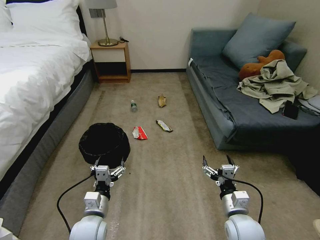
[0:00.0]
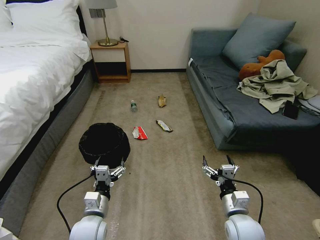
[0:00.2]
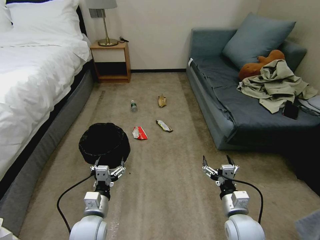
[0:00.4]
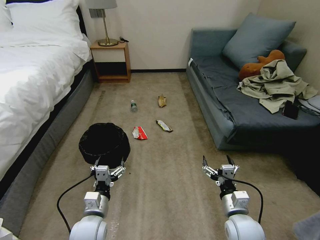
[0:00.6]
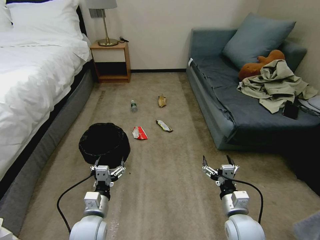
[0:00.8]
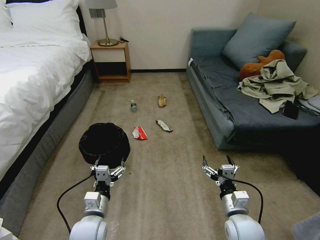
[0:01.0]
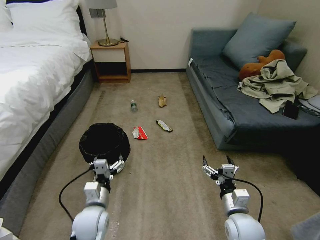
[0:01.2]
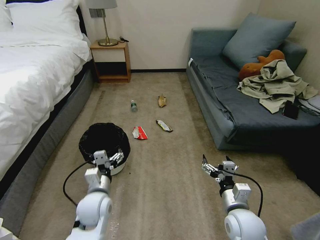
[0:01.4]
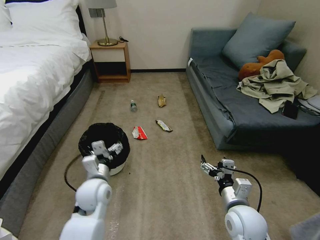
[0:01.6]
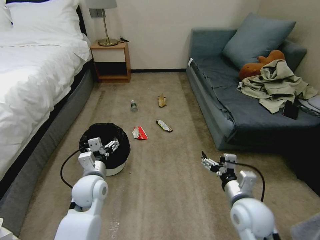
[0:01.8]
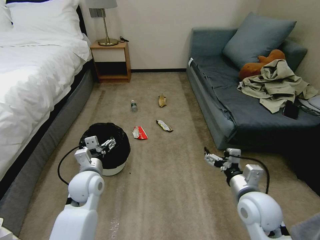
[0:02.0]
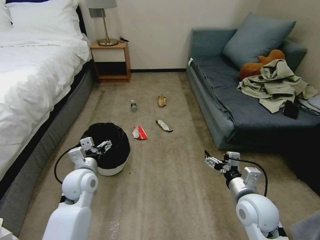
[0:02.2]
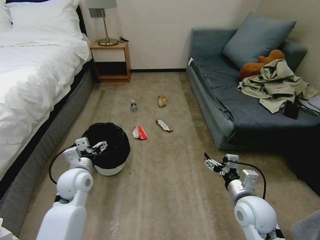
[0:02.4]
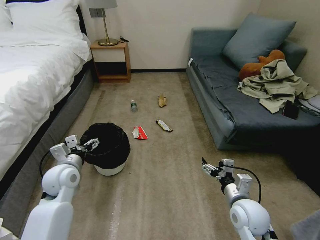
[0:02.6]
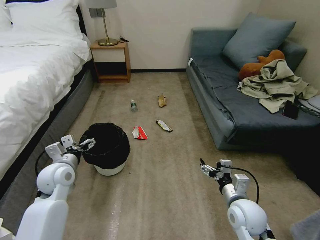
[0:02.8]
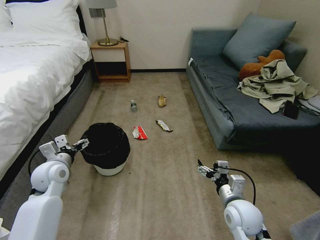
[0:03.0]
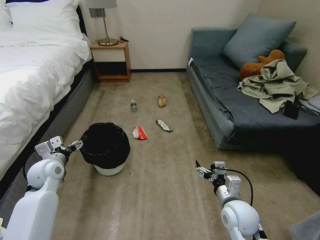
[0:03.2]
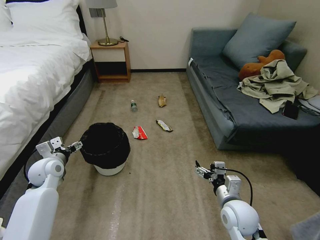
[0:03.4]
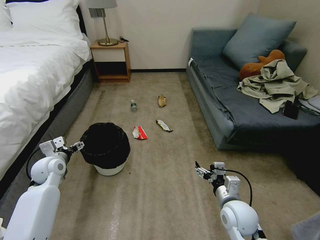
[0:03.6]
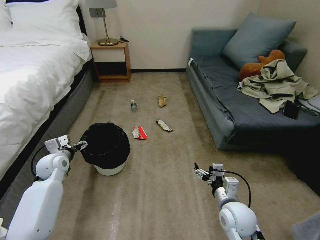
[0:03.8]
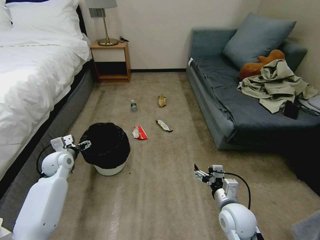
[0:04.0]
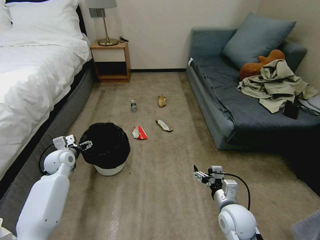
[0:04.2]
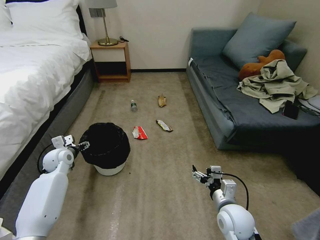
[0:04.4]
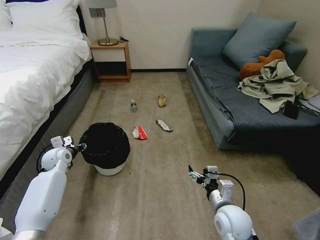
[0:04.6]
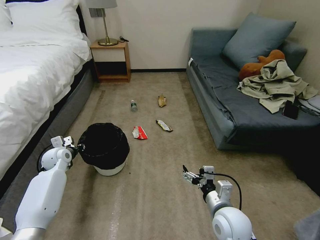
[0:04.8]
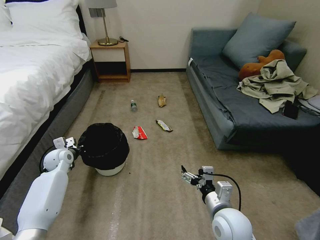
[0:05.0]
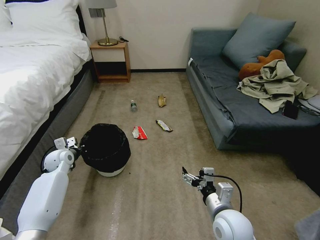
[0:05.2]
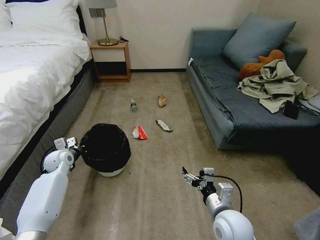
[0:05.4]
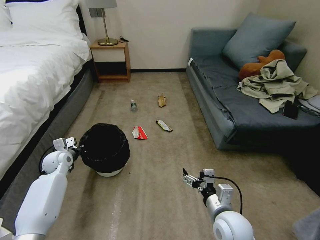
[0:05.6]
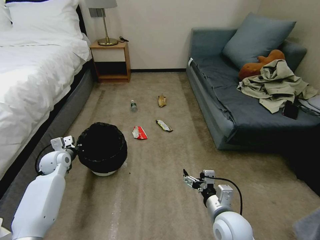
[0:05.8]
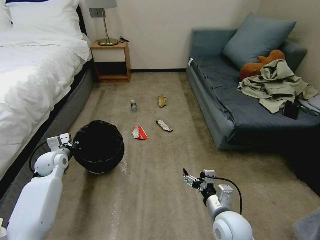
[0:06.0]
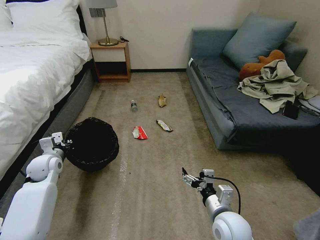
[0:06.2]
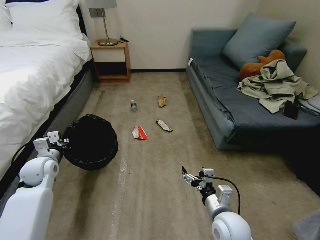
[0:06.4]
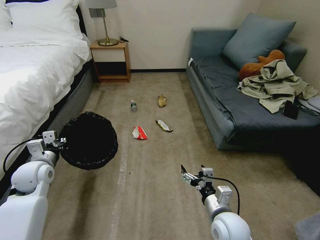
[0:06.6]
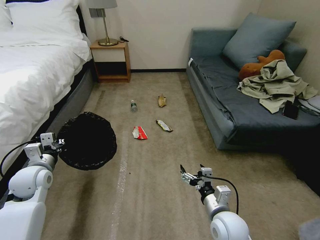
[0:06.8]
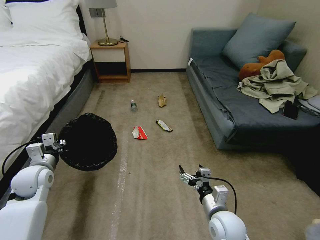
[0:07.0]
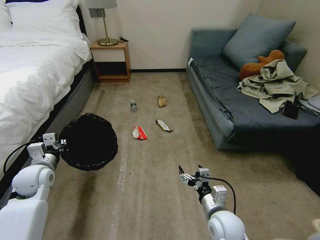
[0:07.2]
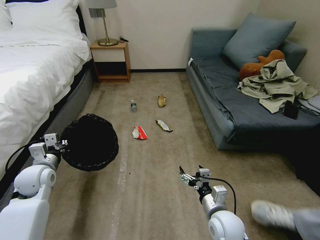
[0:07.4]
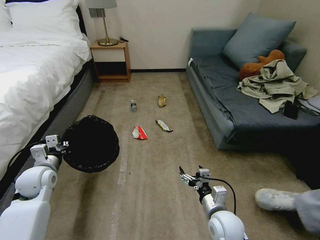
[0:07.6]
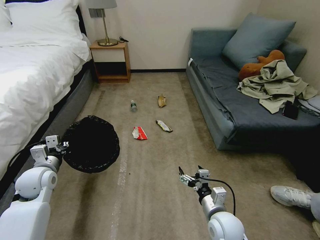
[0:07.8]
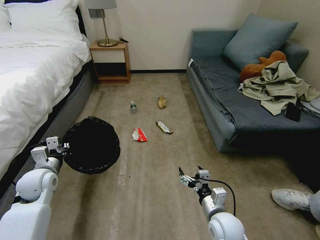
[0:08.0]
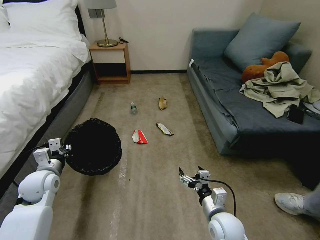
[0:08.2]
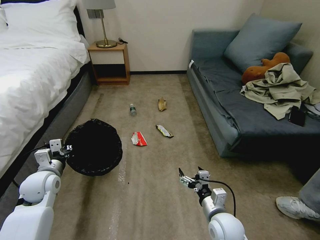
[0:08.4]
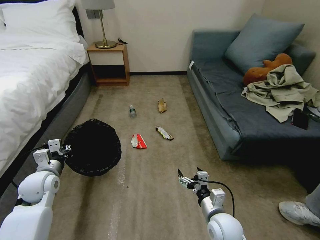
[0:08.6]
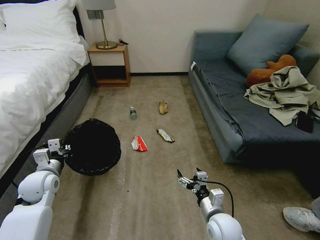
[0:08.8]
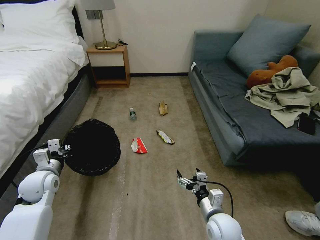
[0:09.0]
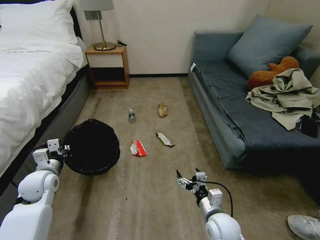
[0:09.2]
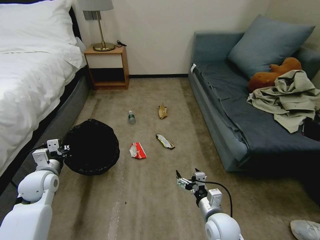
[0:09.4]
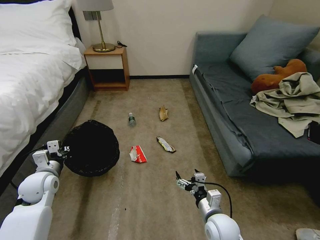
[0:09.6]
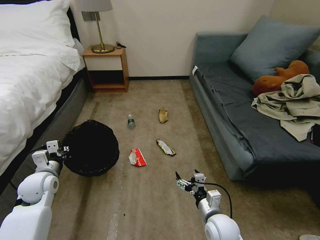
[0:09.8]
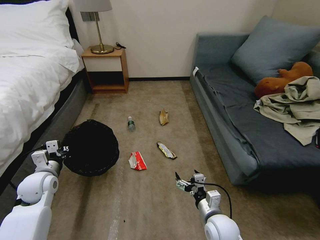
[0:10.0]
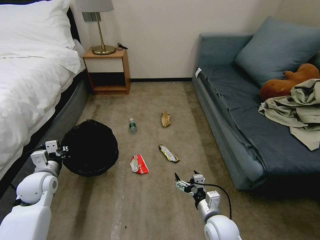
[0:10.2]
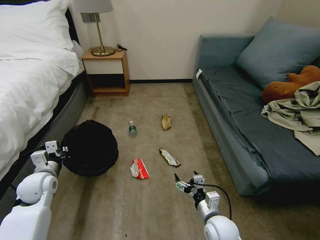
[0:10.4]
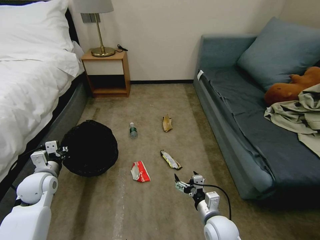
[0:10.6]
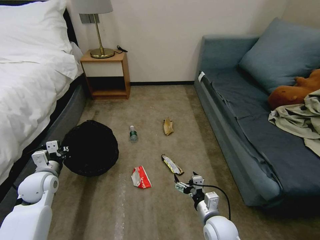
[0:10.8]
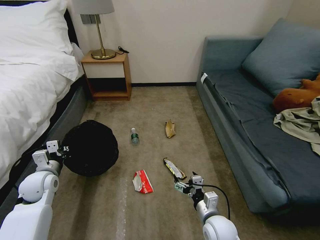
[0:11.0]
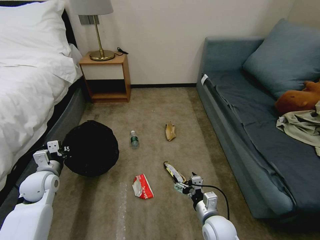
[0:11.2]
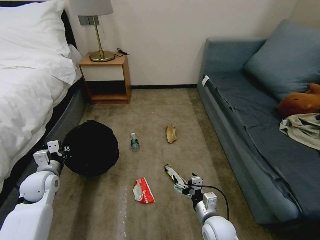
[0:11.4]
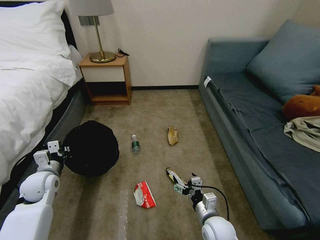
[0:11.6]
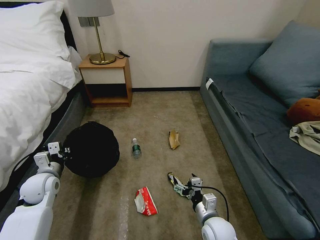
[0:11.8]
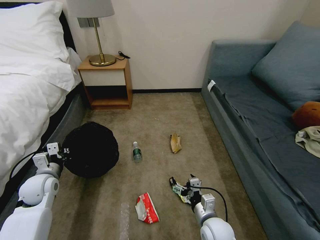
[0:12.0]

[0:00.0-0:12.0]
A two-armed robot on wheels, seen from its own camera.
Task of the whole recording: Pick up the trash bin, then pick up the garbage on the floor and place it into the trash bin.
0:01.6 to 0:03.0: The left gripper moves to the left, approximately 15 cm.
0:03.0 to 0:04.4: The left gripper goes about 10 cm forward and downward.
0:04.4 to 0:06.0: The left gripper closes.
0:06.0 to 0:07.6: The left gripper travels backward by approximately 10 cm.

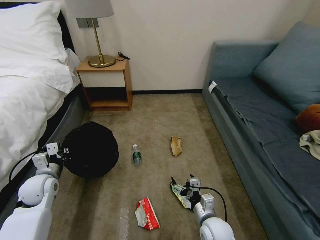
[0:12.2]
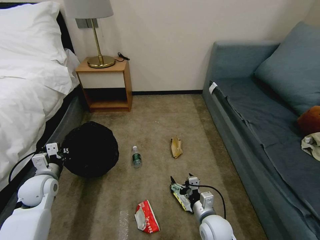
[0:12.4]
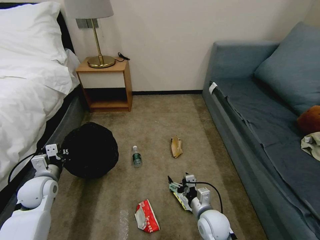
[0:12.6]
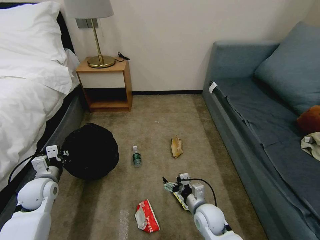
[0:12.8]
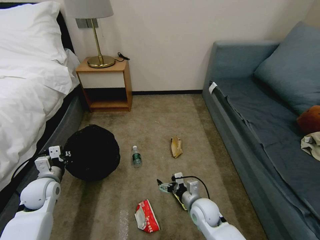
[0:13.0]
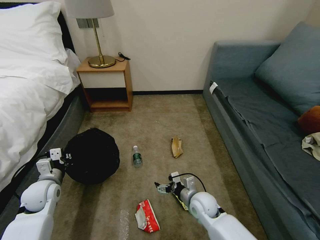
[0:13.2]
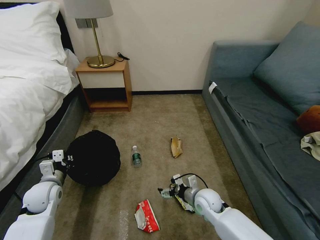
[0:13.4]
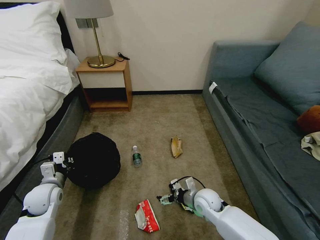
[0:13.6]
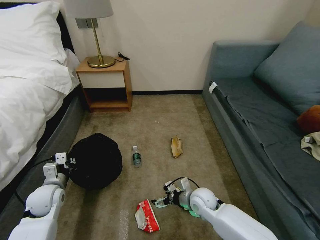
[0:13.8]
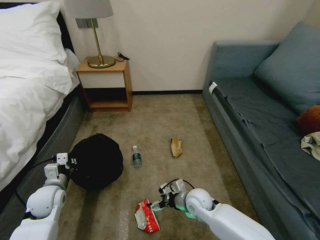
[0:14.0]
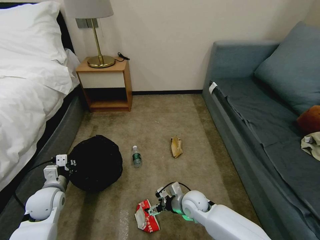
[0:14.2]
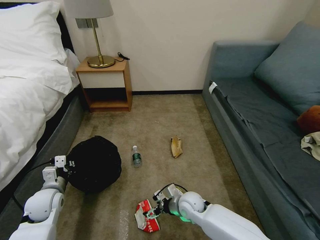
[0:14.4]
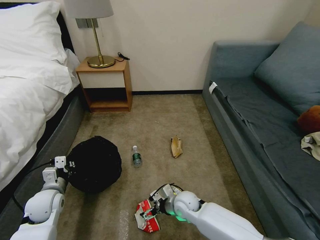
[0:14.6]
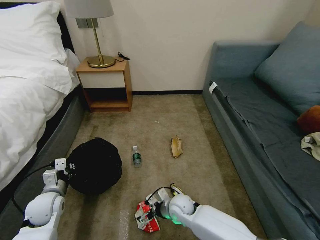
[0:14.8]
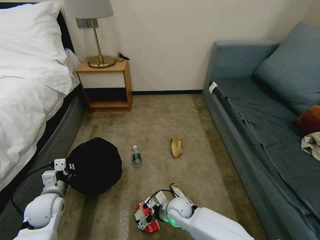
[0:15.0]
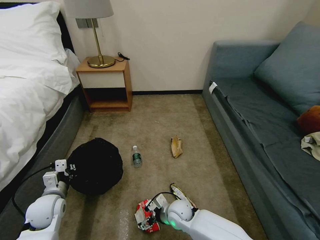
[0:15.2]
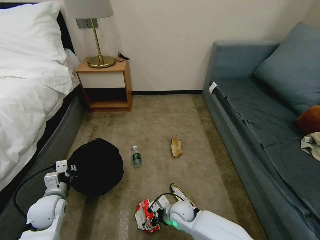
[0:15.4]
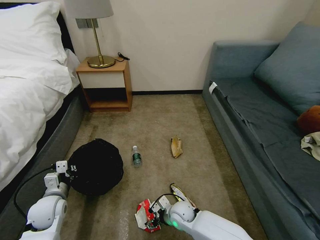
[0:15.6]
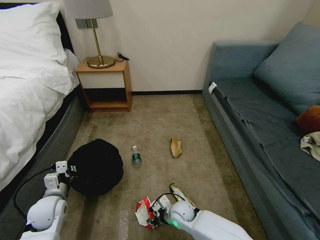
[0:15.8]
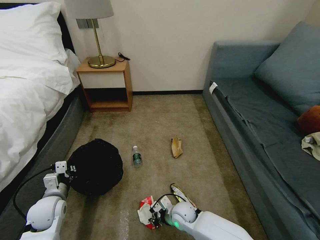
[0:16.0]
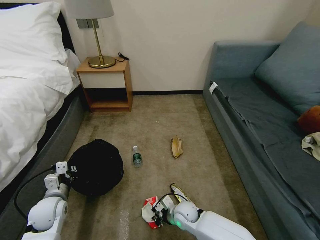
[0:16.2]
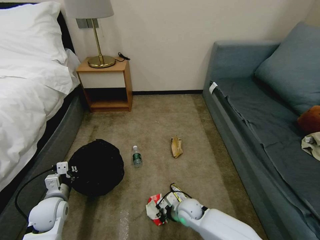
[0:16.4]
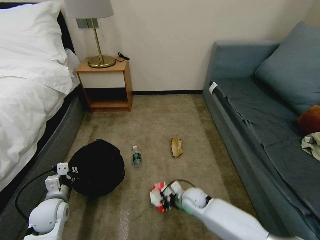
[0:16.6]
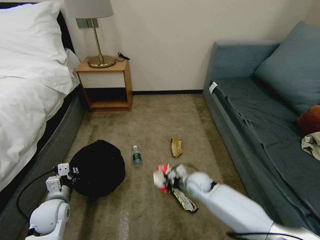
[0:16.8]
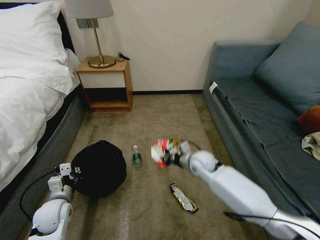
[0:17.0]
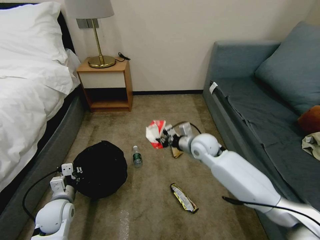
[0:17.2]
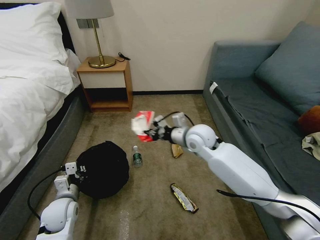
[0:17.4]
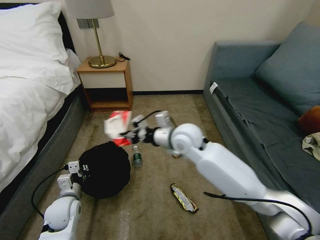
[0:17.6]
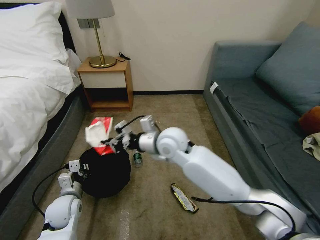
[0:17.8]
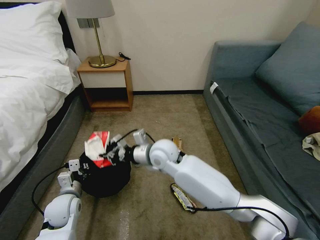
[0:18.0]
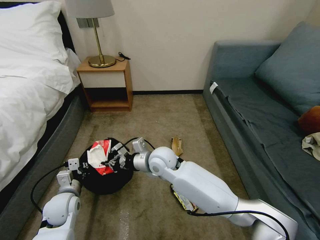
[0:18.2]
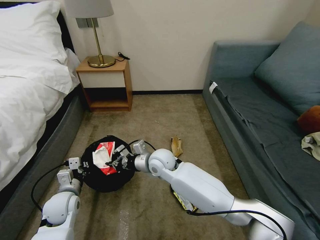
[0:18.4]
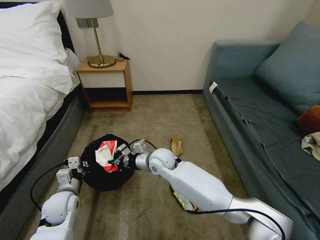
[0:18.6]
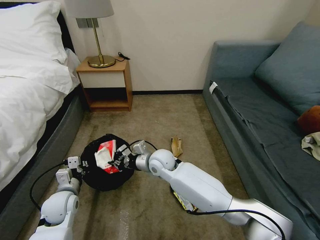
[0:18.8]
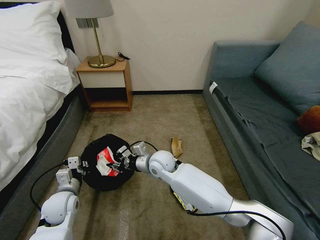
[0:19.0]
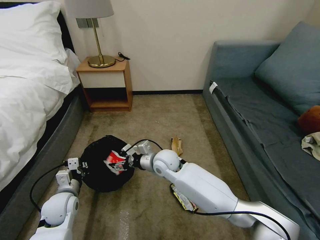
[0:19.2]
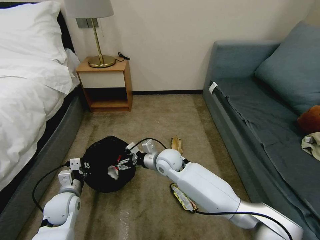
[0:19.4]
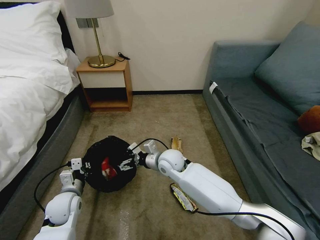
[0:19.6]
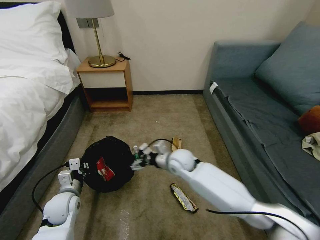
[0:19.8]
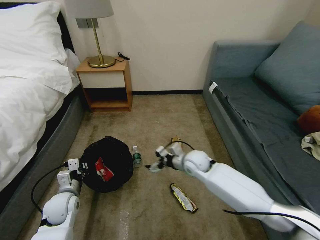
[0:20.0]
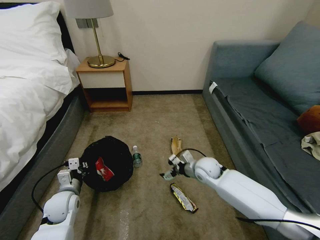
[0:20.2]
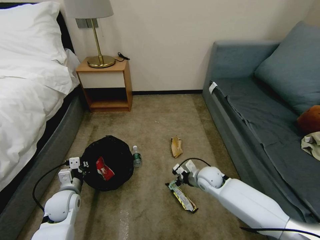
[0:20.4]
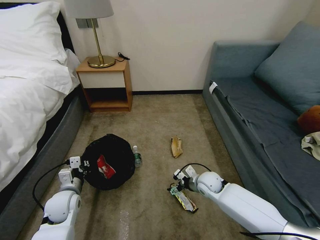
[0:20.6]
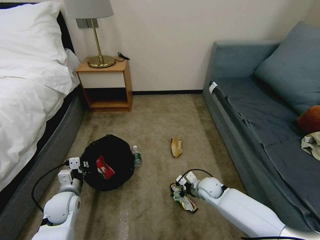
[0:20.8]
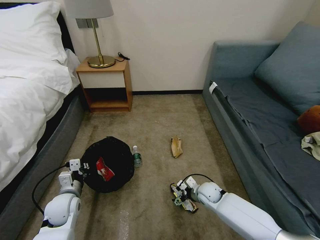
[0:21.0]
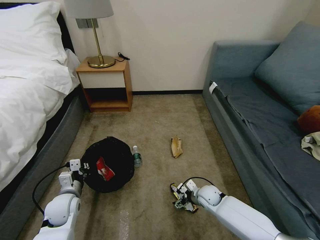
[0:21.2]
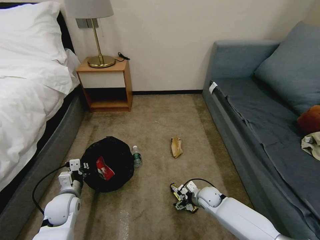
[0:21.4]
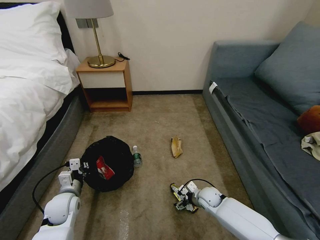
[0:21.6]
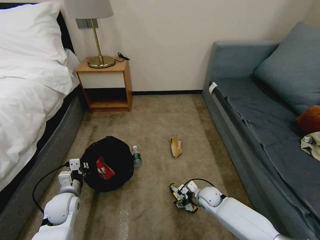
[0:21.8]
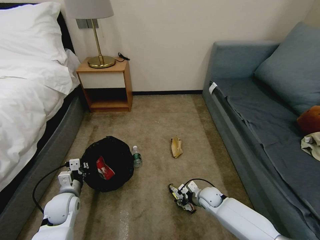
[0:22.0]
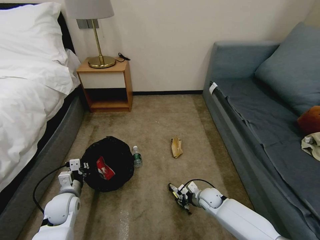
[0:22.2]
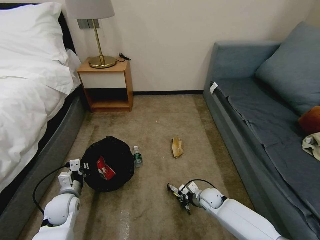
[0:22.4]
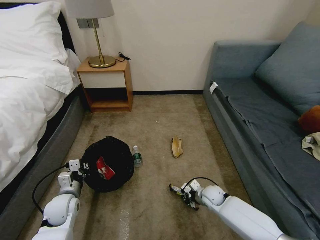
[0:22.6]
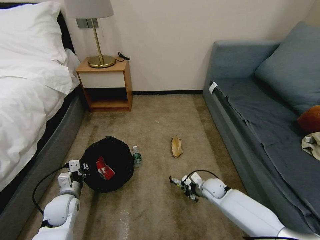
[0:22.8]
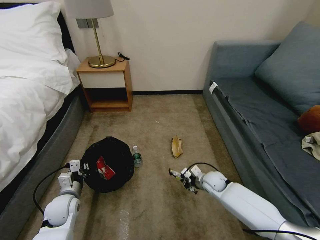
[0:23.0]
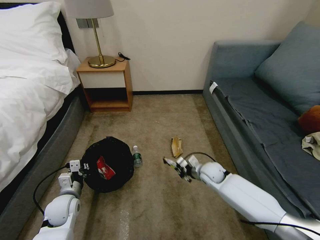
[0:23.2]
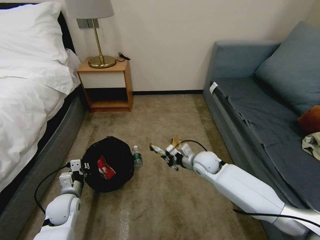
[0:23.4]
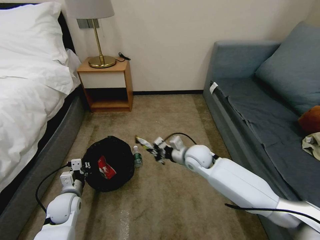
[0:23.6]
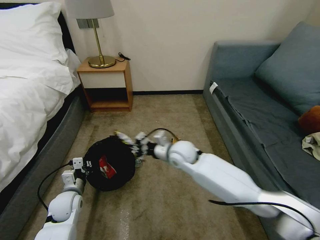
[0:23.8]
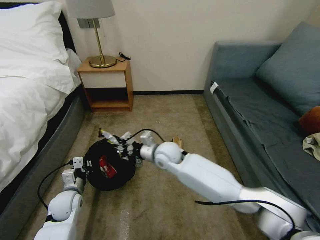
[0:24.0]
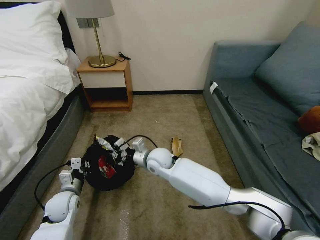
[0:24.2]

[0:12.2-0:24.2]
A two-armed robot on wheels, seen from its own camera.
Task of the whole recording: Pick up the trash bin, then pick up the garbage on the floor and place it into the trash bin.
0:12.2 to 0:13.8: The right gripper moves forward, some 10 cm.
0:13.8 to 0:15.2: The right gripper heads to the left and downward, covering some 10 cm.
0:15.2 to 0:16.6: The right gripper shifts about 5 cm to the right, and closes.
0:16.6 to 0:18.2: The right gripper travels upward and to the left by about 25 cm.
0:18.2 to 0:19.8: The right gripper goes about 5 cm to the right, and opens.
0:19.8 to 0:21.2: The right gripper travels downward and to the right by about 25 cm.
0:21.2 to 0:22.6: The right gripper closes up.
0:22.6 to 0:24.2: The right gripper is displaced to the left and upward by roughly 30 cm.
